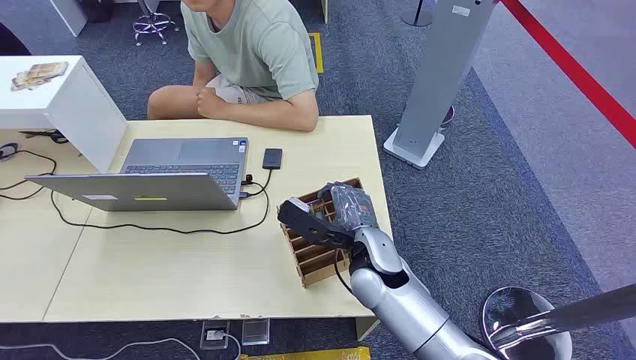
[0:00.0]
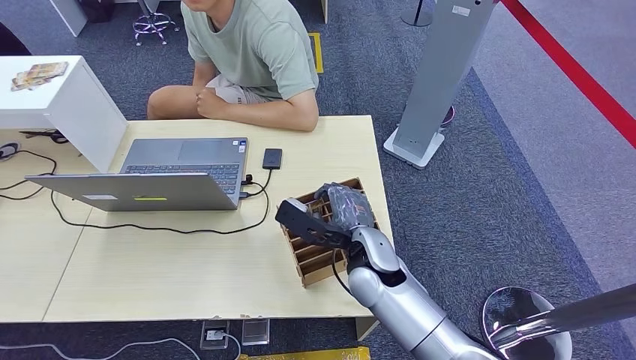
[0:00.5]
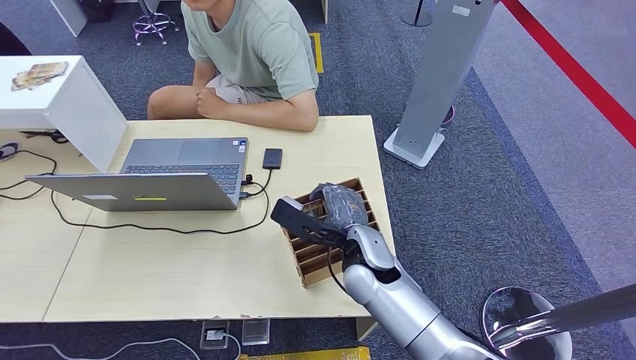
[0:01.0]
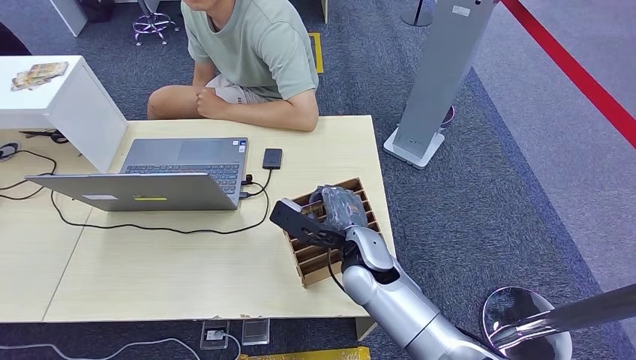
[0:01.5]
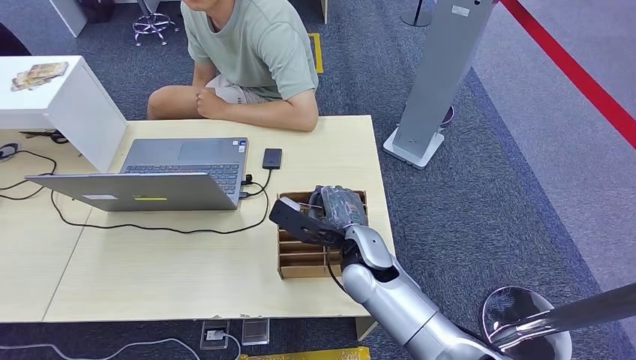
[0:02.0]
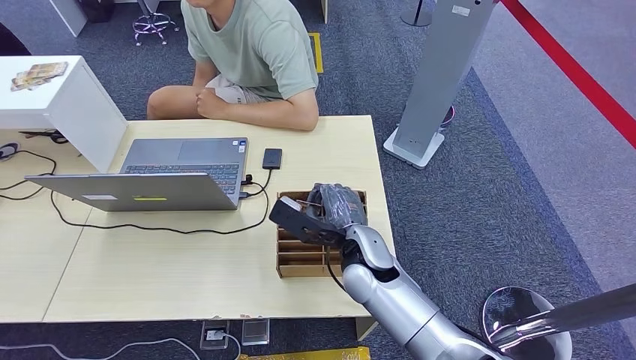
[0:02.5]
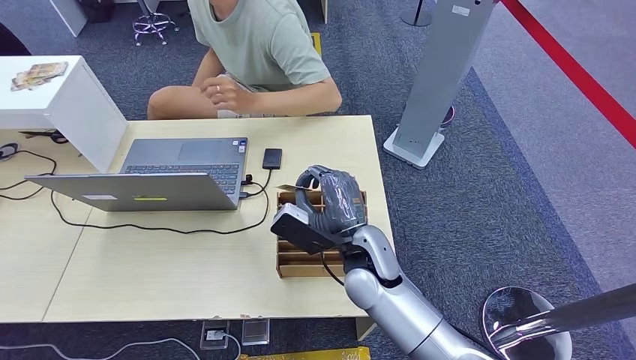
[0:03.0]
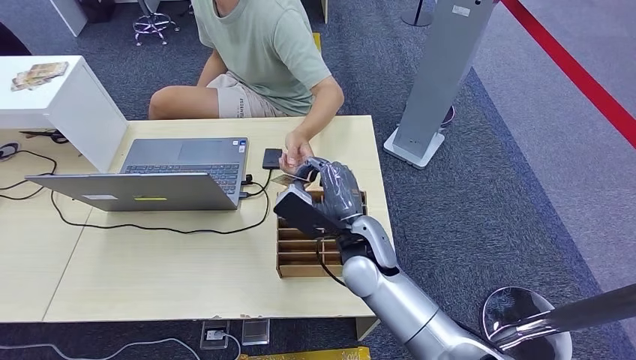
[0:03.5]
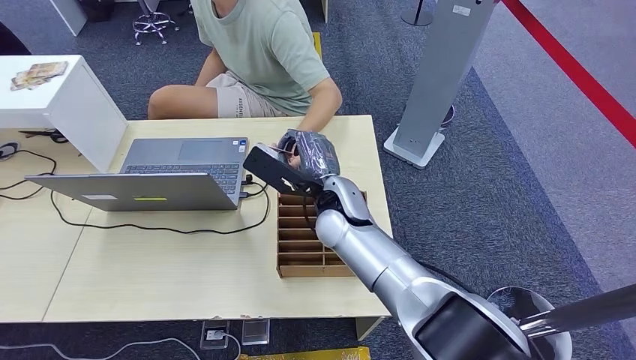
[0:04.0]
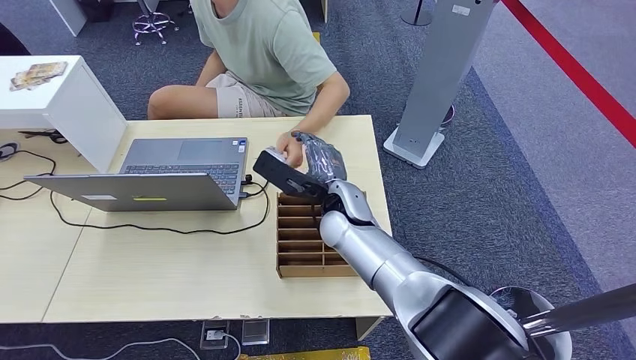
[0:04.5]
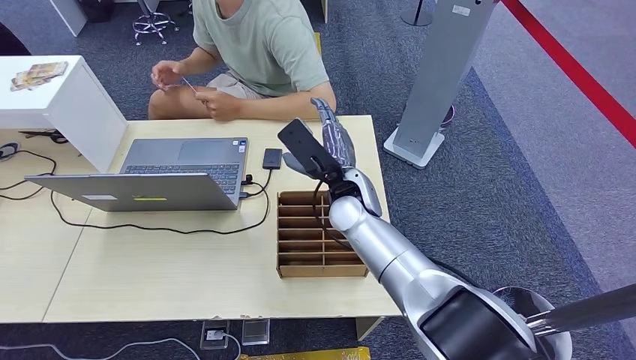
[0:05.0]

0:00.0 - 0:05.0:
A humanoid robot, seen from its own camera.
Step, 0:00.0 - 0:03.0: Pick up the room card from the card holder.
Step, 0:04.0 - 0:05.0: Hand the room card to the target.
0:02.5 - 0:05.0: The right hand goes approximately 10 cm forward and upward.

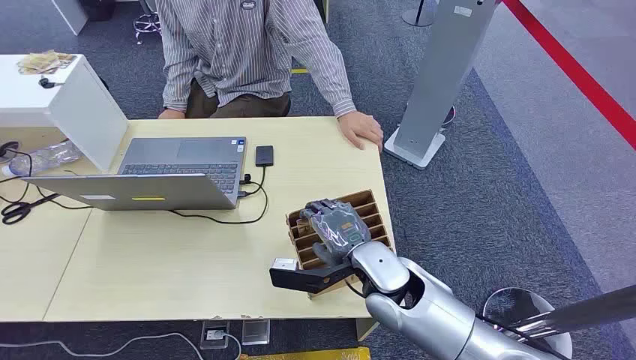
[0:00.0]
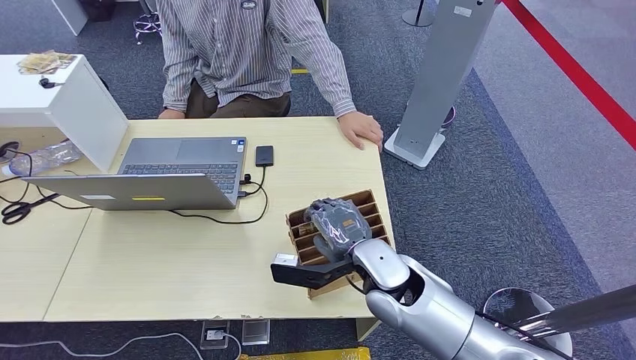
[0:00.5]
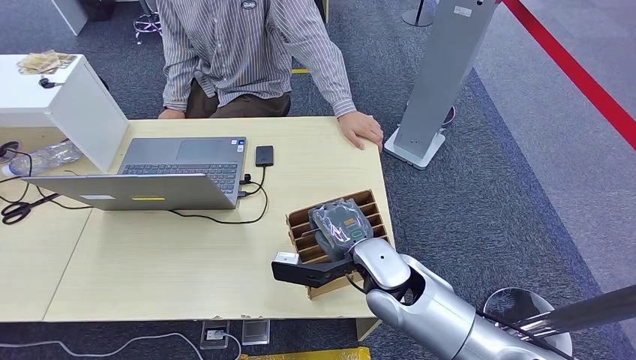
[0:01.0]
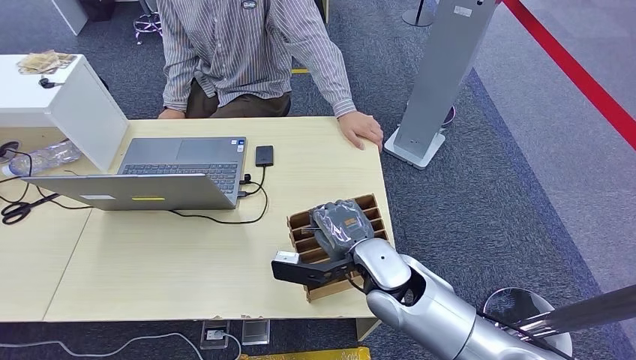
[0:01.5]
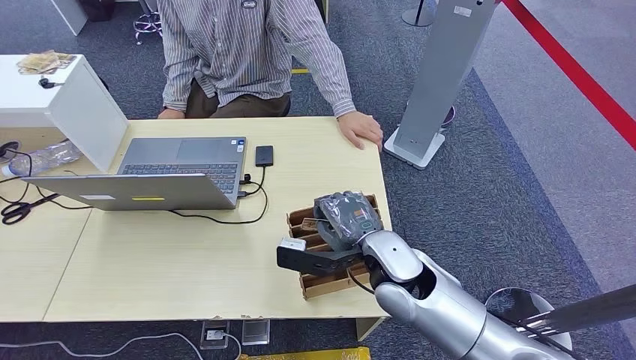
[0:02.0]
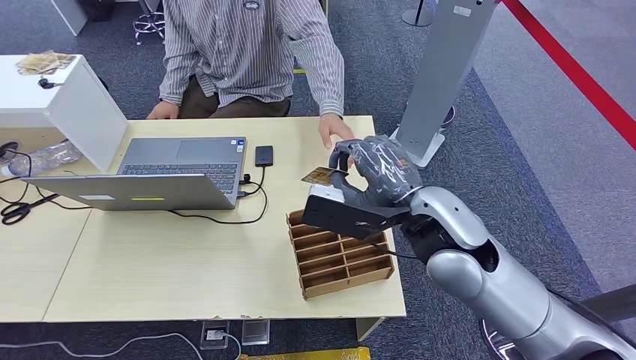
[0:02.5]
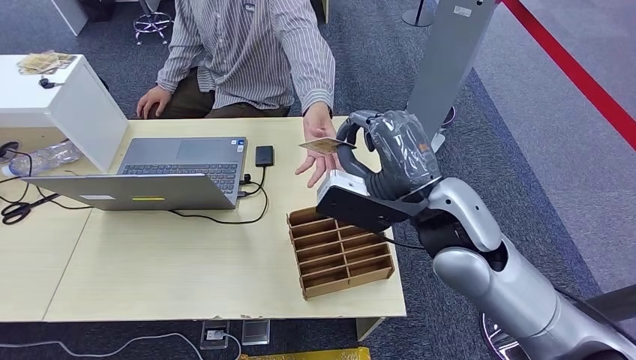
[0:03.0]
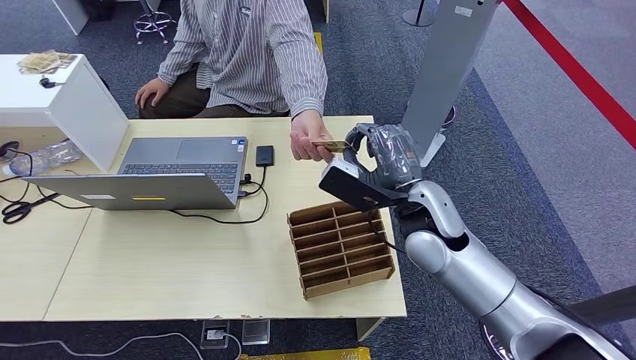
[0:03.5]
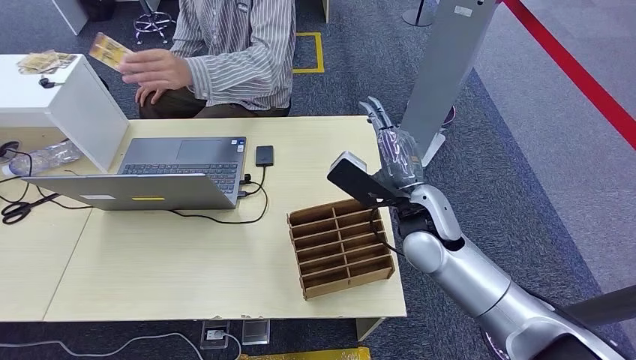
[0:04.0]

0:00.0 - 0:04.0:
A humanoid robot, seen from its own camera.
Step, 0:00.0 - 0:02.0: Pick up the room card from the card holder.
Step, 0:03.5 - 0:04.0: Hand the room card to the target.
